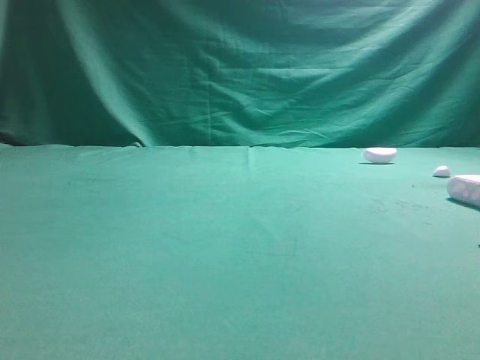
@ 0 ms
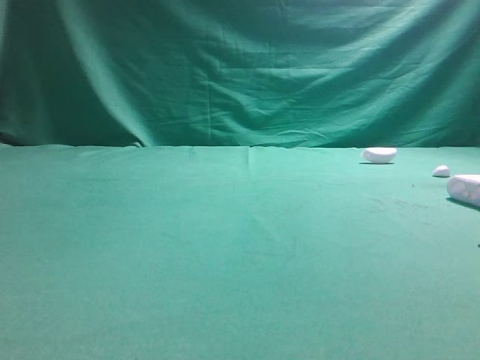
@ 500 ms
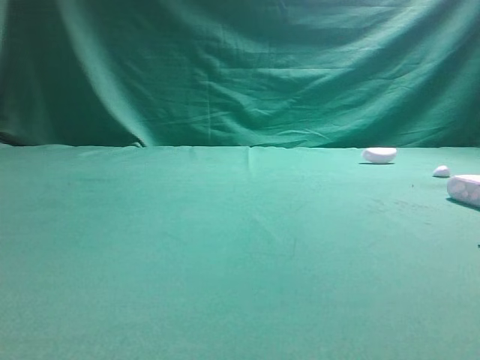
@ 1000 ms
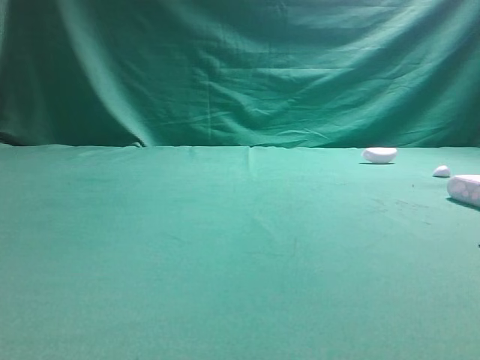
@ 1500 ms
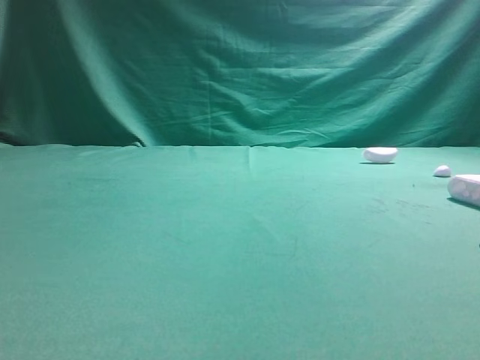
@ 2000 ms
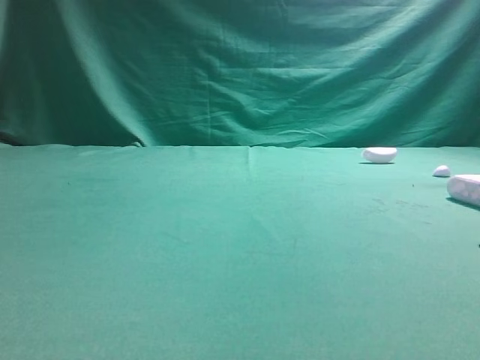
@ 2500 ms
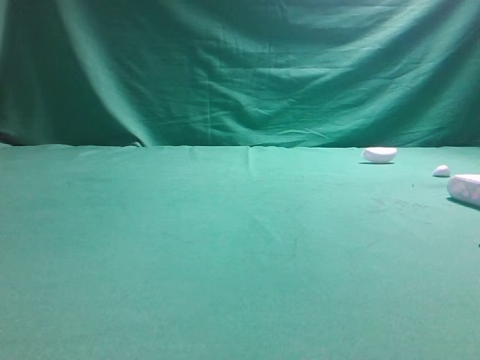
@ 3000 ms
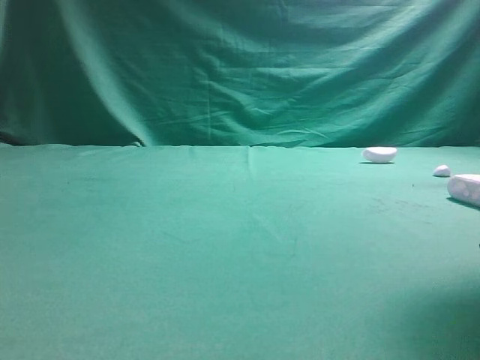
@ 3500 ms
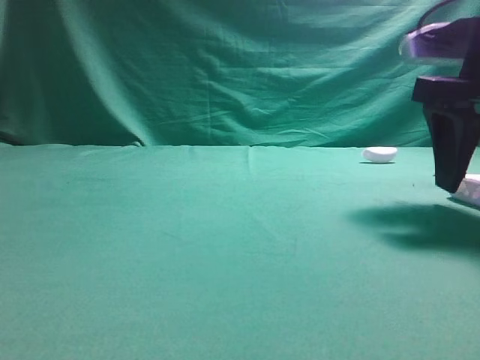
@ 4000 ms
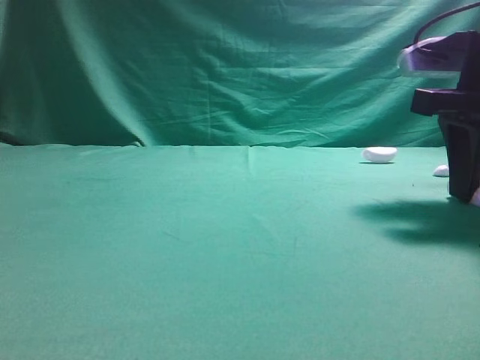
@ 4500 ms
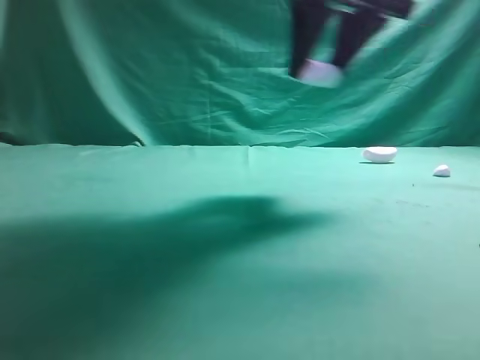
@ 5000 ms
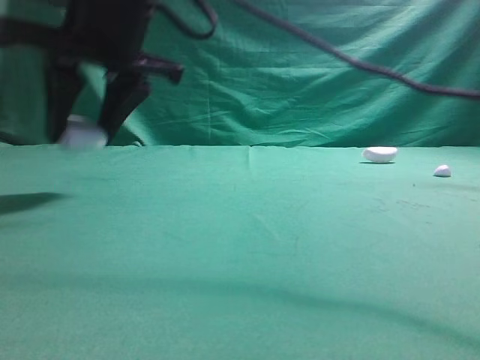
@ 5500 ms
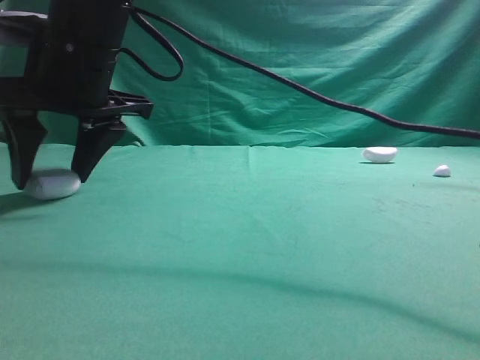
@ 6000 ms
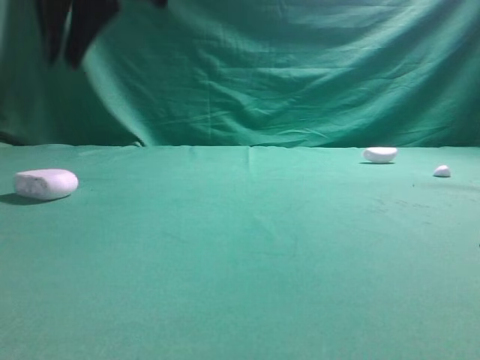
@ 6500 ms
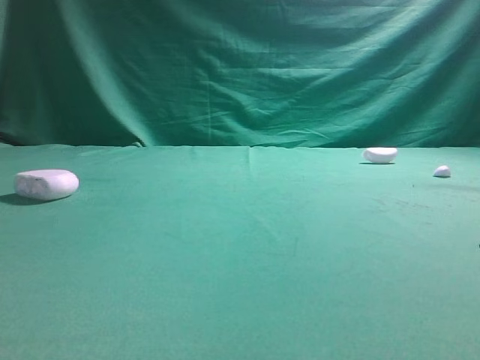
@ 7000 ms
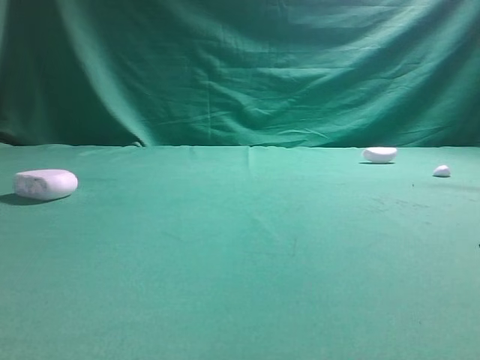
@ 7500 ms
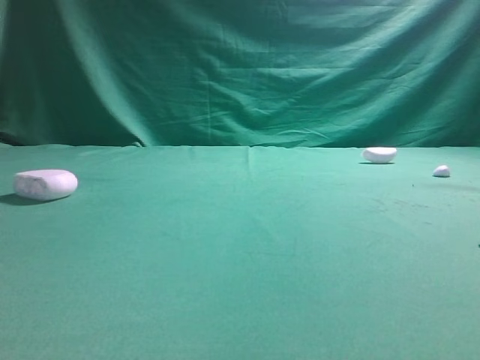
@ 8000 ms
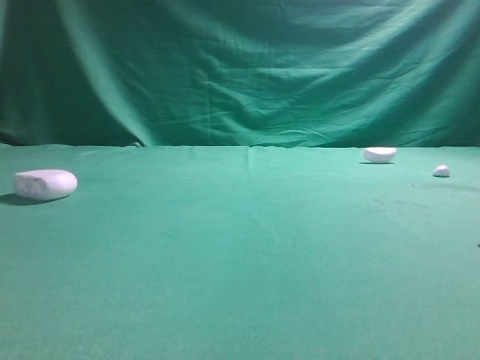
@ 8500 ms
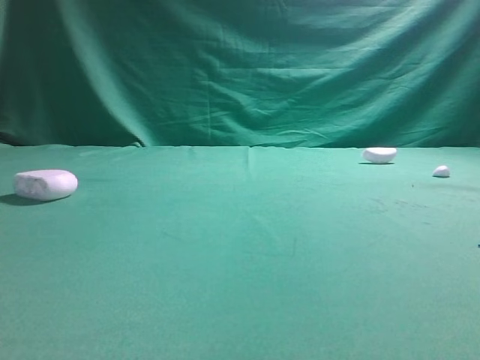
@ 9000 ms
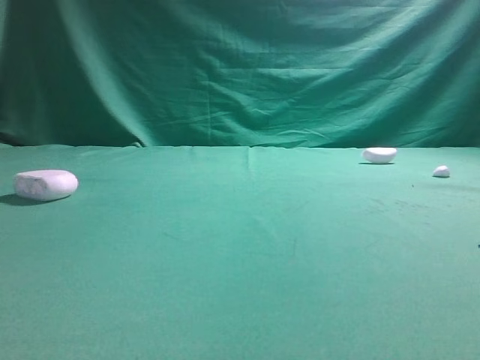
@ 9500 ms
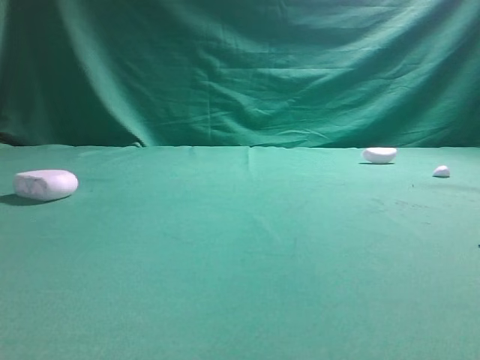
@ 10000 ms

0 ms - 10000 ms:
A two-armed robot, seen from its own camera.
Step, 0 ms - 3500 ms: Grasp the Bluetooth earphone case.
Step, 4000 ms - 6000 ms: Place bluetooth earphone case on the left side of the table.

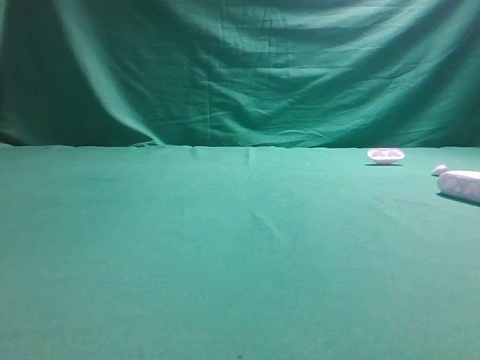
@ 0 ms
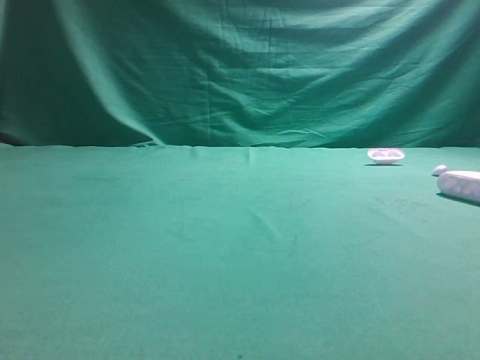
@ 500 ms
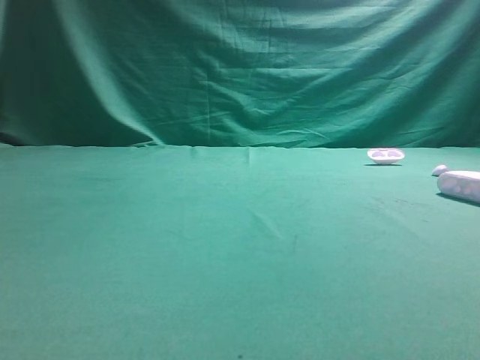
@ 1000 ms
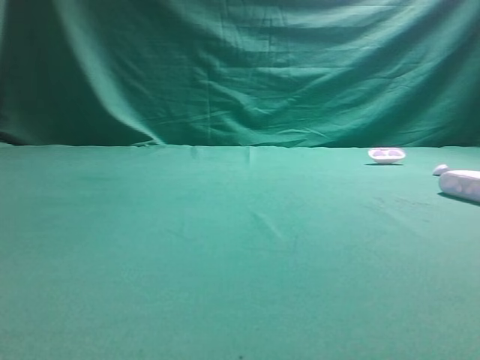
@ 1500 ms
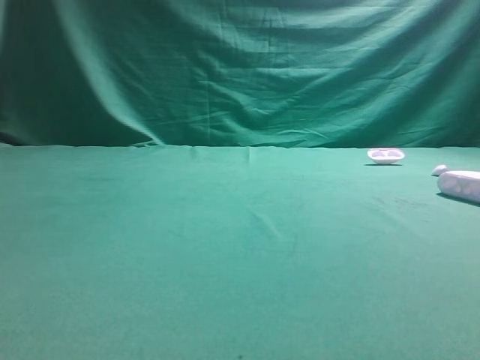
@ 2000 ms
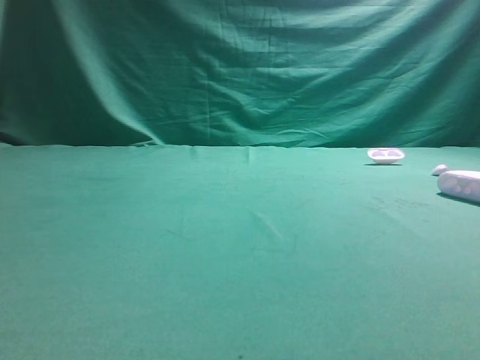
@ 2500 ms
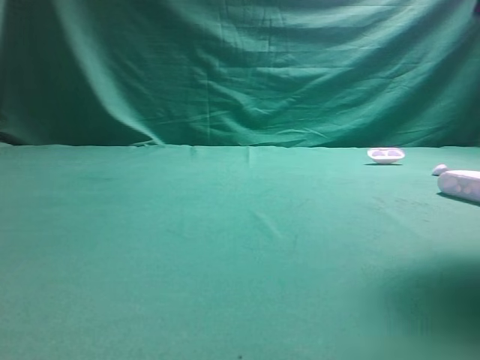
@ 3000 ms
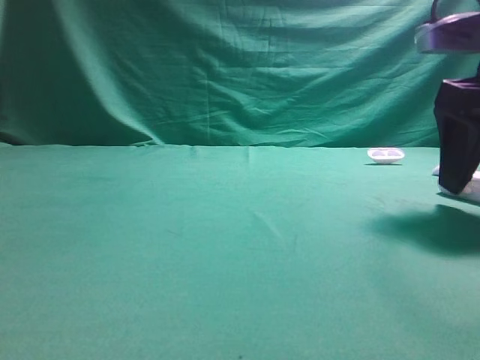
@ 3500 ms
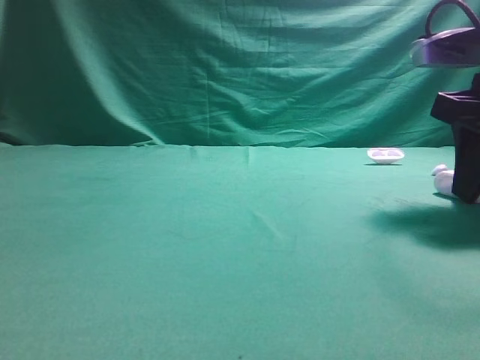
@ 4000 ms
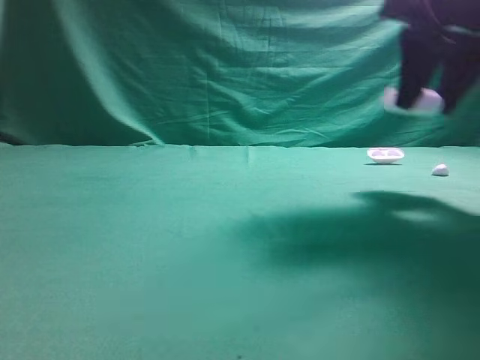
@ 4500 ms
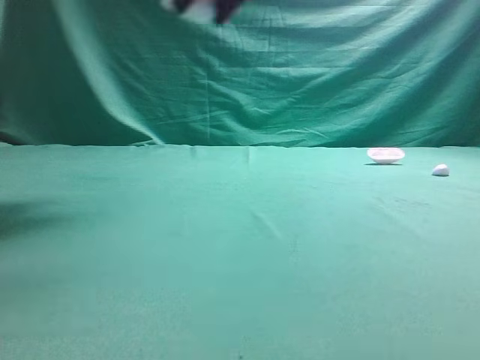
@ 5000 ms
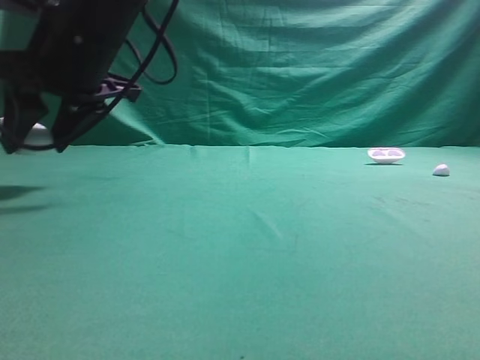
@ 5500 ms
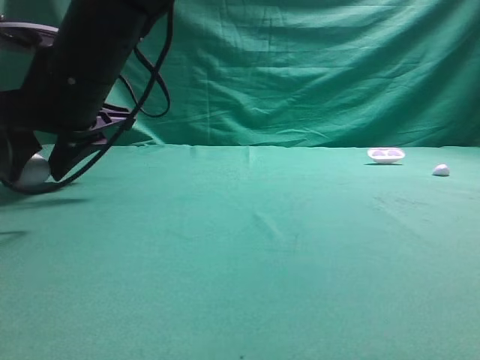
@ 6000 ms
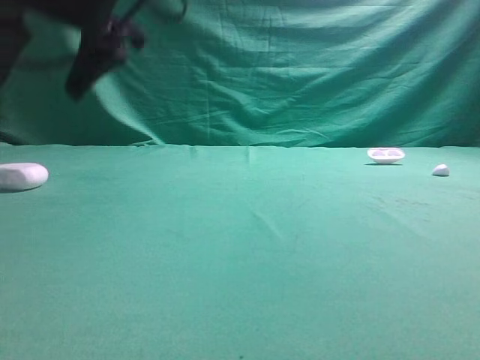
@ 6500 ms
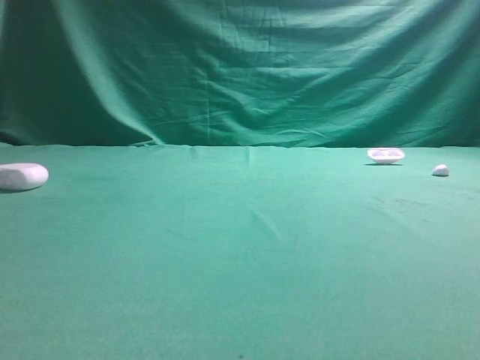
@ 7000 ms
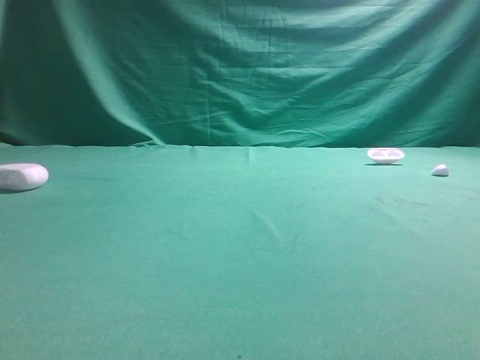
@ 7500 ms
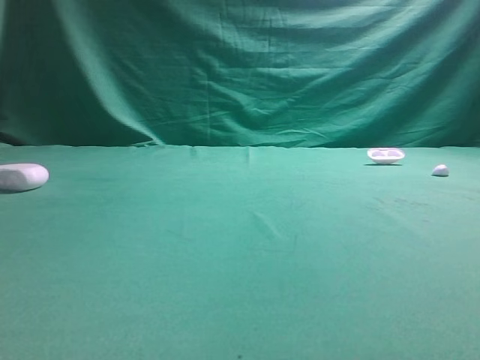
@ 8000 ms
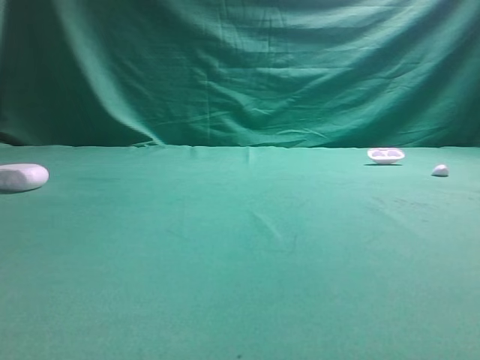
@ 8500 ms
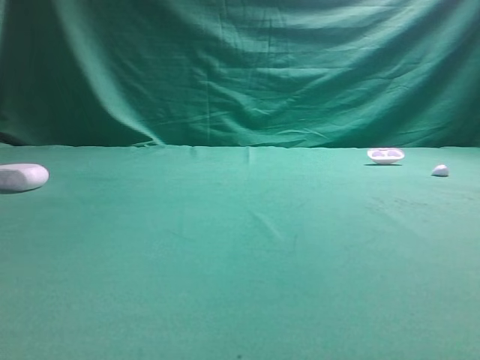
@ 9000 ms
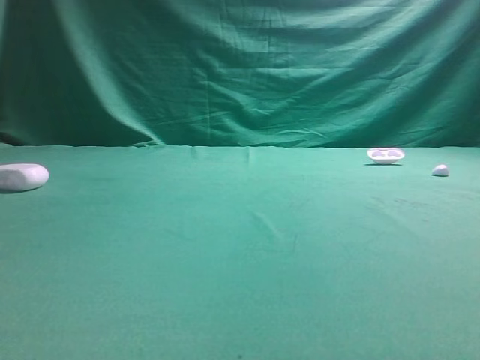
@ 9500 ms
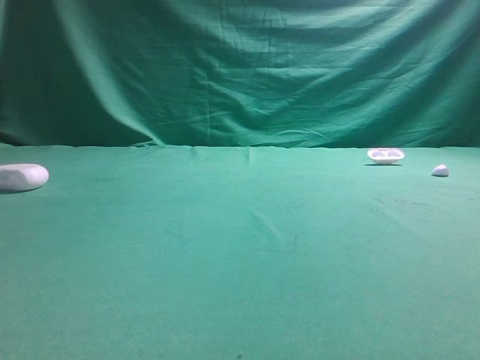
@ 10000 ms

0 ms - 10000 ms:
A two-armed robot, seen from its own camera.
Step, 0 ms - 4000 ms: Grasp the Bluetooth earphone case.
Step, 4500 ms - 6500 ms: Place bluetooth earphone case on the left side of the table.
